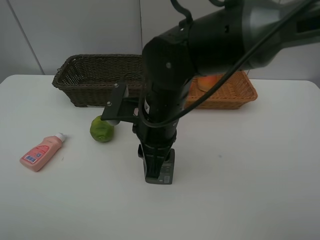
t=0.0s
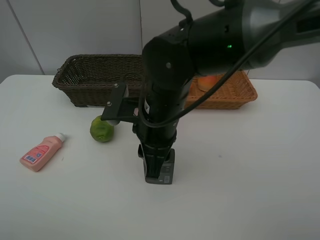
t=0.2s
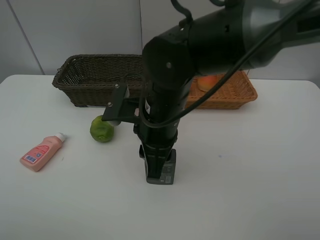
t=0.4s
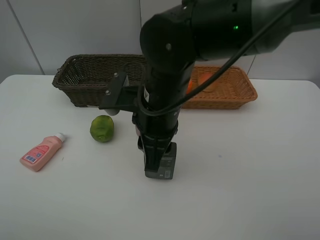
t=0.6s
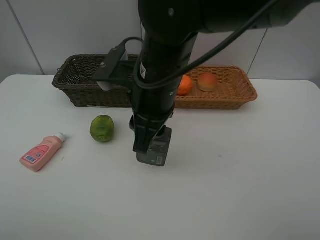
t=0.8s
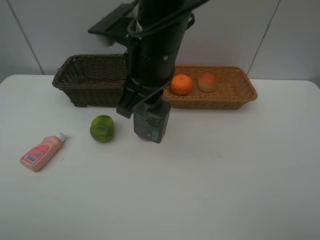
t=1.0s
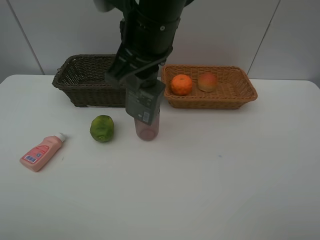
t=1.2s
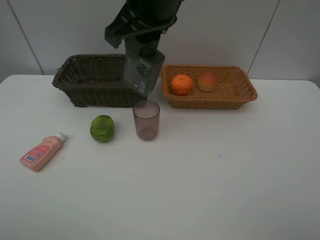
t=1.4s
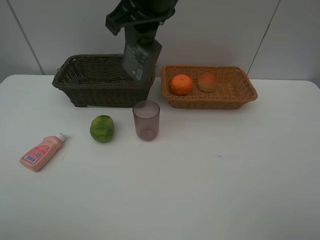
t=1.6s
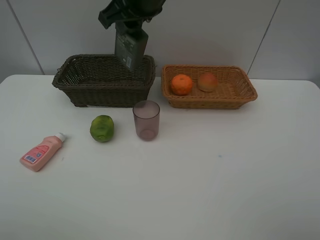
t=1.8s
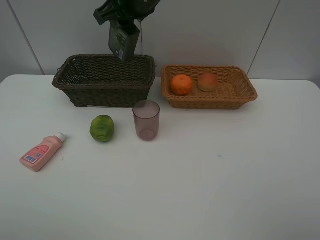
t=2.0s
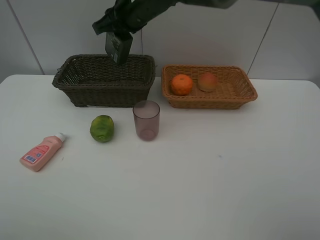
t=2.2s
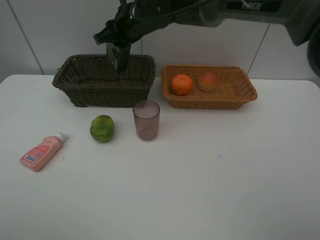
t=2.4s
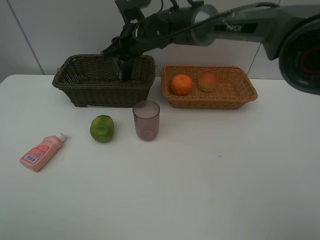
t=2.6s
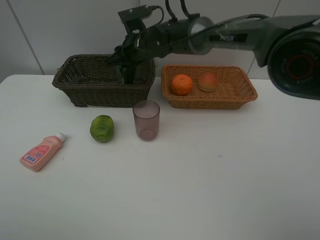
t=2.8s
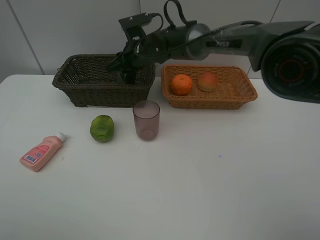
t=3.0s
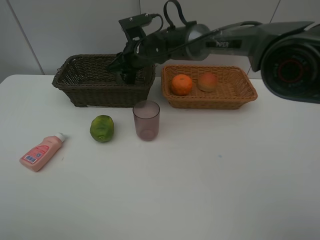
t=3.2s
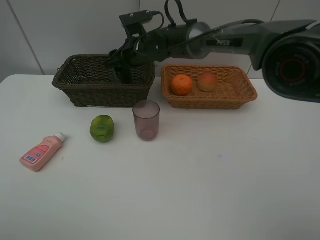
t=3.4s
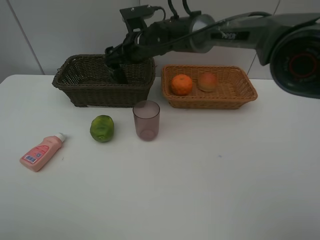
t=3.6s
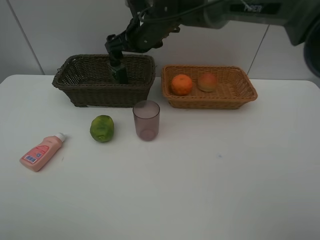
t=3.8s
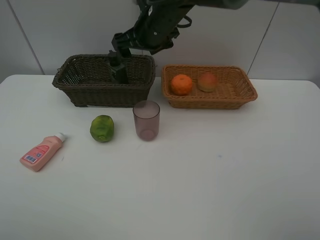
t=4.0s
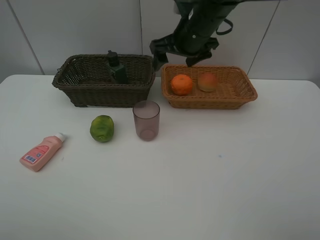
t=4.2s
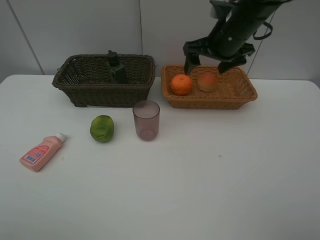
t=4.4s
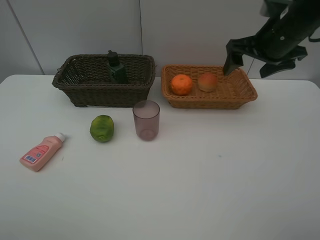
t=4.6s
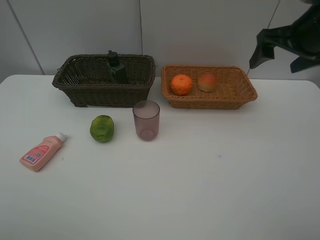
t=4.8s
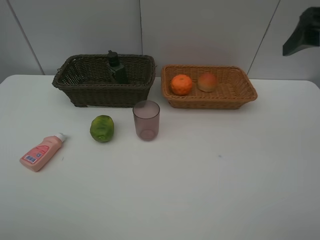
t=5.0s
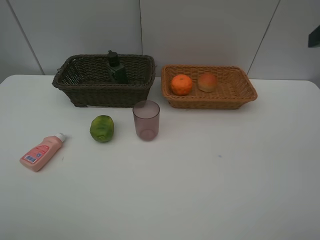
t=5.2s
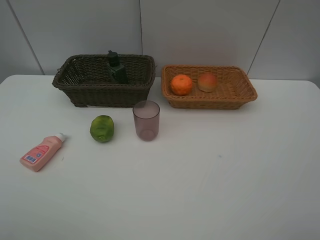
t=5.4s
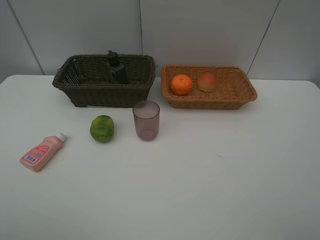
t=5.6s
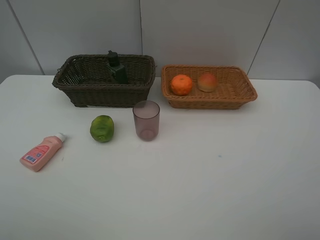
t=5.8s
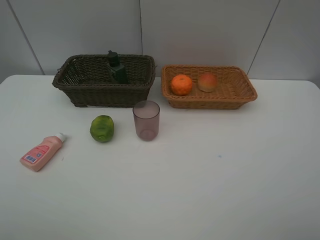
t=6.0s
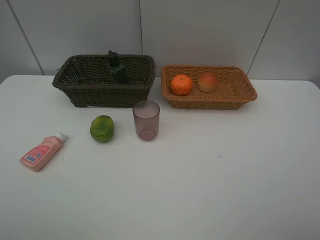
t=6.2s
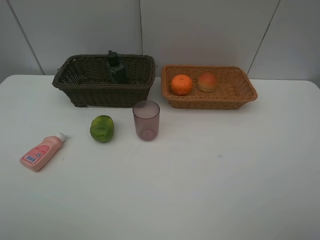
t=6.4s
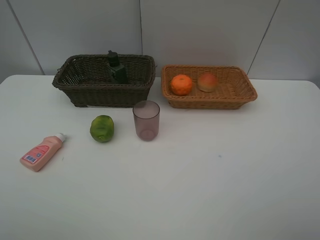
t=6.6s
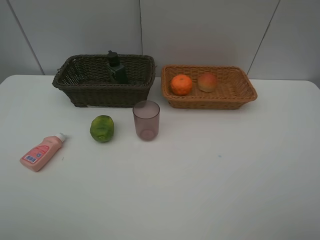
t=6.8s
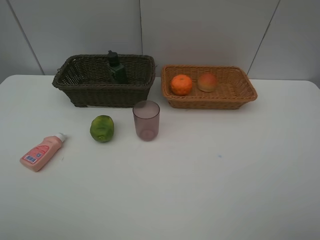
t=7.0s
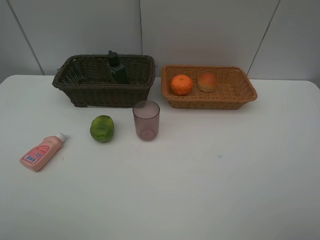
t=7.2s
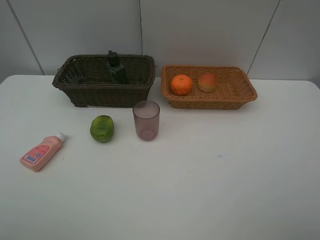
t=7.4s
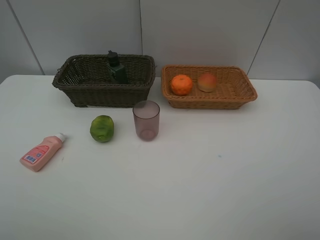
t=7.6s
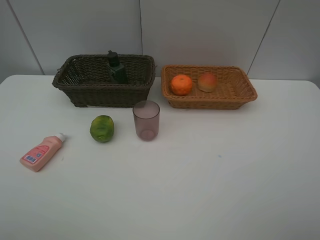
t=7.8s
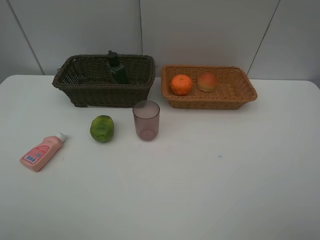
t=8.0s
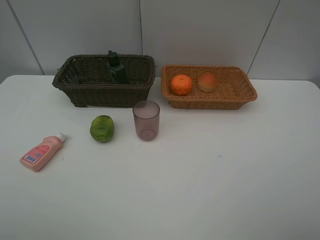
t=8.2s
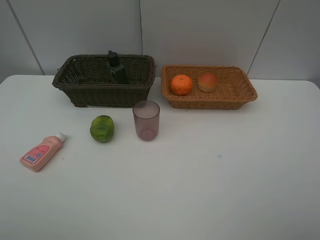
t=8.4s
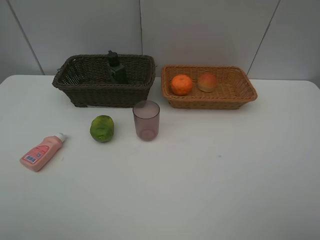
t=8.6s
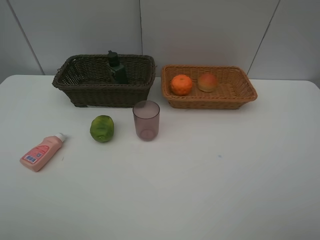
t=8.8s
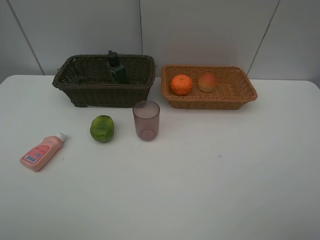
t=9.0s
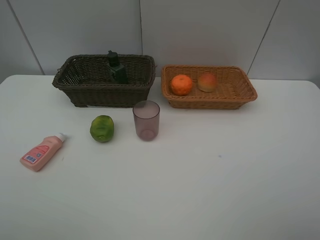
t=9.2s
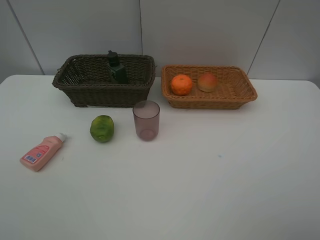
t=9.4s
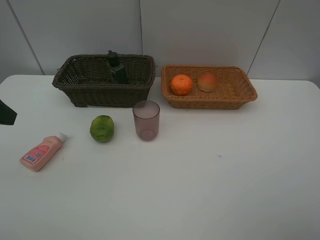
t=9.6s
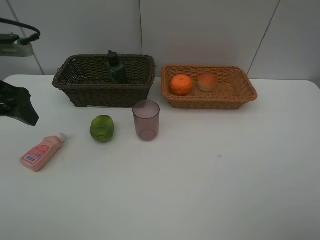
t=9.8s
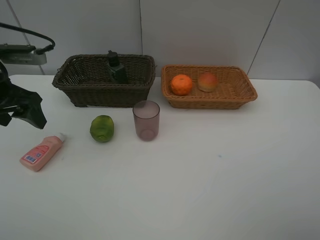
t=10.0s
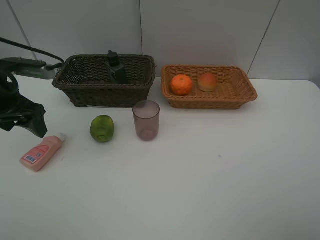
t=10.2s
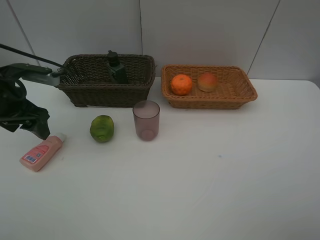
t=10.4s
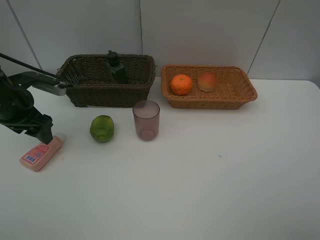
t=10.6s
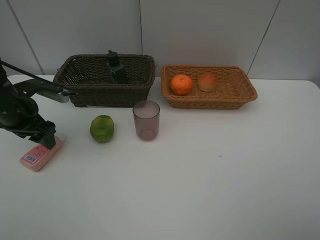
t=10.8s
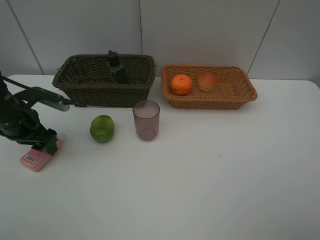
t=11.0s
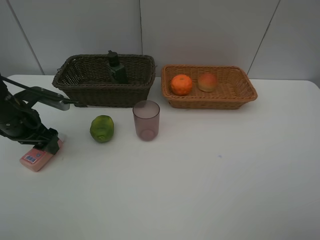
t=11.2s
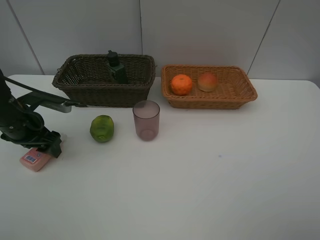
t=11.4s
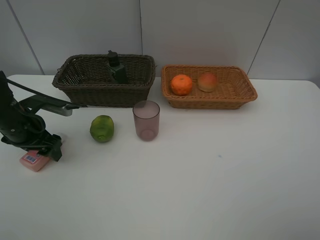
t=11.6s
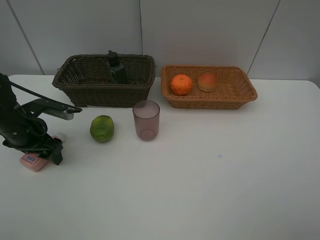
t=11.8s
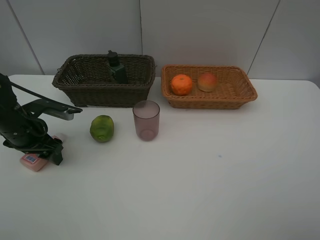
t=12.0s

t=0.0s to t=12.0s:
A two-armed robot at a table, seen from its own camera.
Task of the whole recording: place multiple objects separately in different baskets.
t=0.0s to t=1.6s: The right gripper travels upward and forward by approximately 20 cm.
t=1.6s to t=3.0s: The right gripper heads downward and forward, covering approximately 25 cm.
t=3.0s to t=4.4s: The right gripper shifts roughly 20 cm to the right and upward, and opens up.
t=4.4s to t=6.0s: The right gripper moves backward, some 35 cm.
t=9.0s to t=10.4s: The left gripper shifts roughly 30 cm forward and downward.
t=10.4s to t=12.0s: The left gripper heads downward, covering about 10 cm.

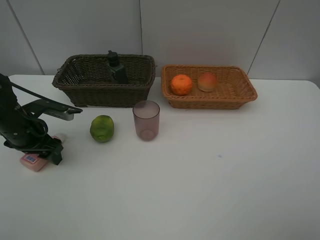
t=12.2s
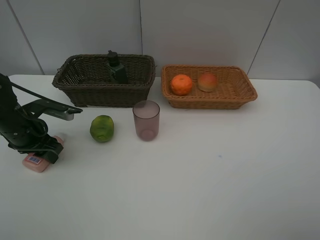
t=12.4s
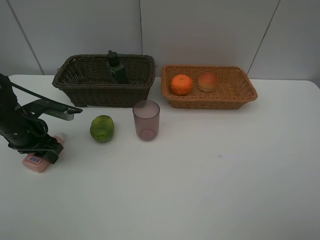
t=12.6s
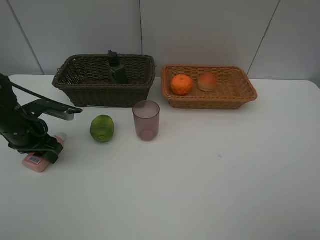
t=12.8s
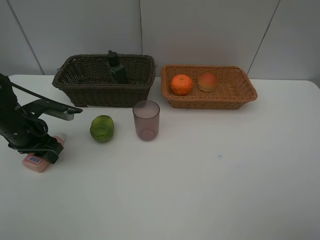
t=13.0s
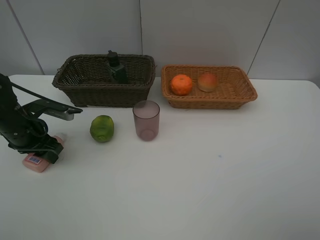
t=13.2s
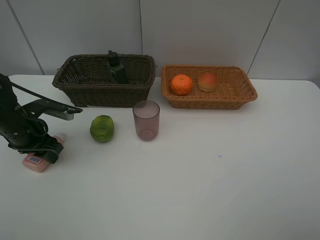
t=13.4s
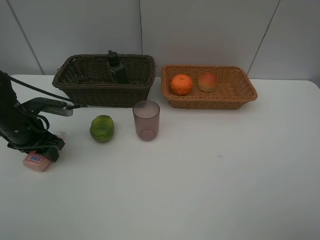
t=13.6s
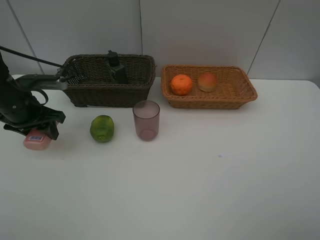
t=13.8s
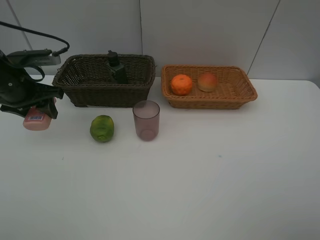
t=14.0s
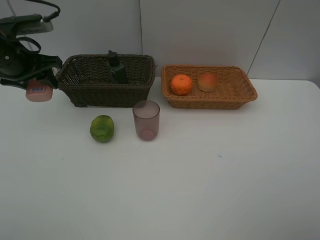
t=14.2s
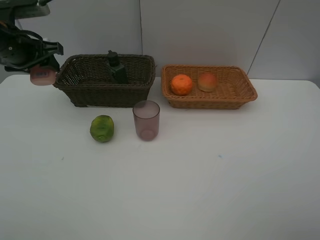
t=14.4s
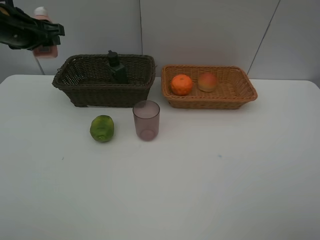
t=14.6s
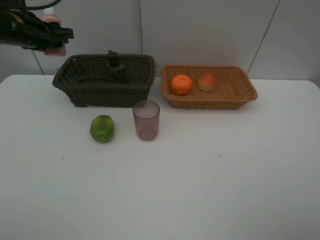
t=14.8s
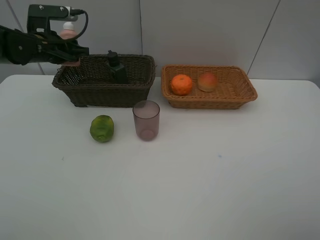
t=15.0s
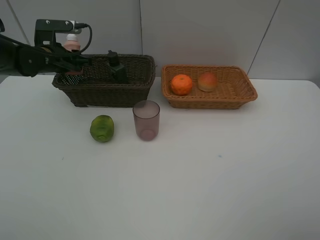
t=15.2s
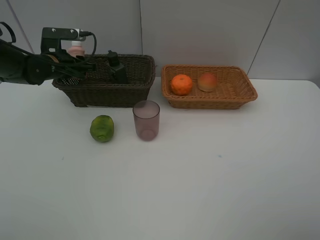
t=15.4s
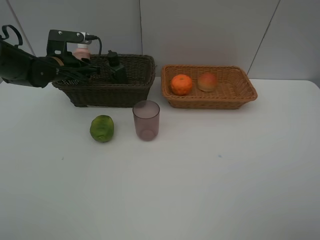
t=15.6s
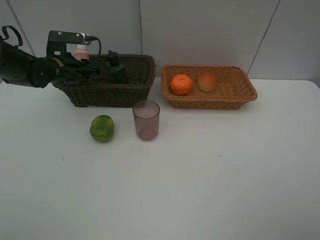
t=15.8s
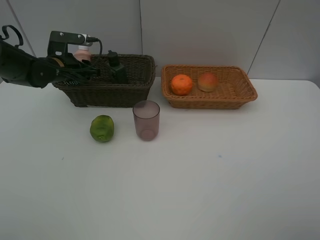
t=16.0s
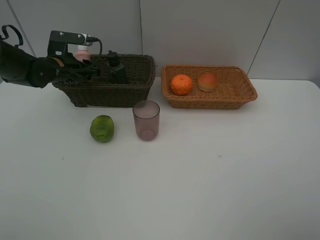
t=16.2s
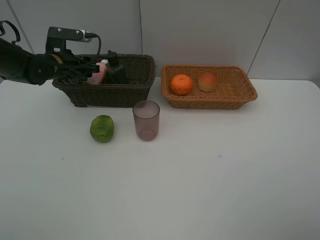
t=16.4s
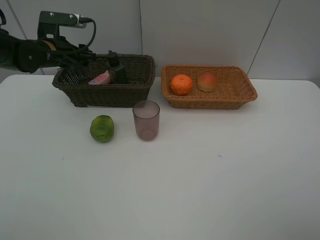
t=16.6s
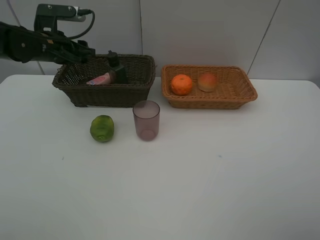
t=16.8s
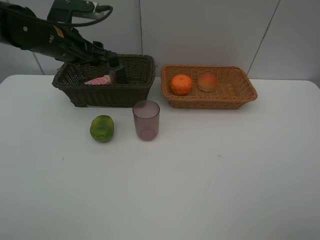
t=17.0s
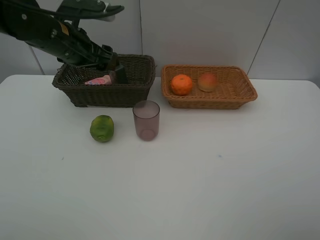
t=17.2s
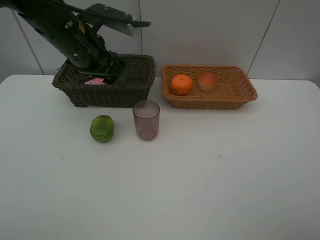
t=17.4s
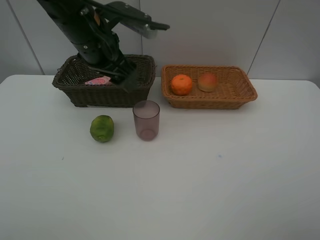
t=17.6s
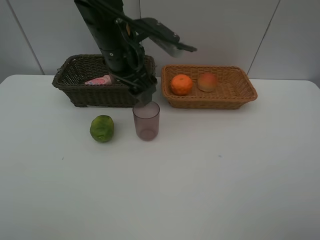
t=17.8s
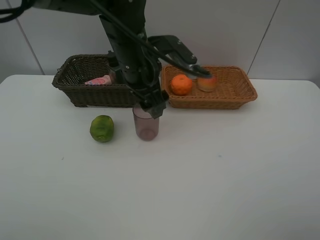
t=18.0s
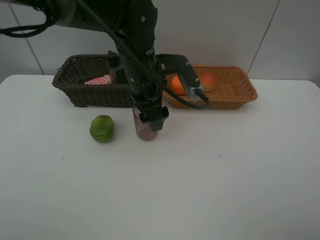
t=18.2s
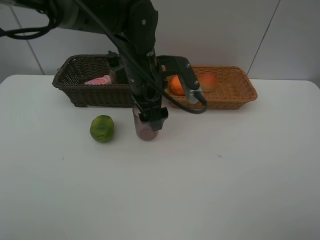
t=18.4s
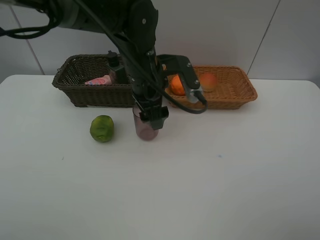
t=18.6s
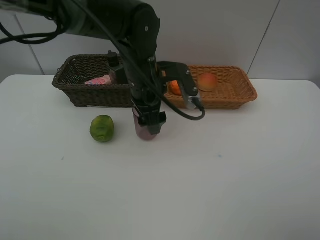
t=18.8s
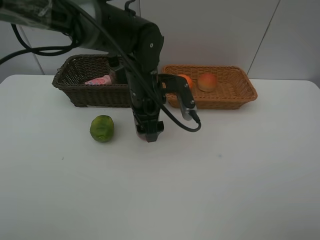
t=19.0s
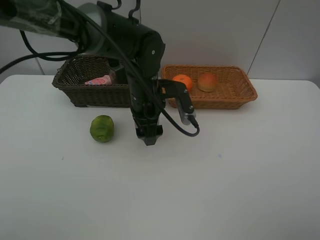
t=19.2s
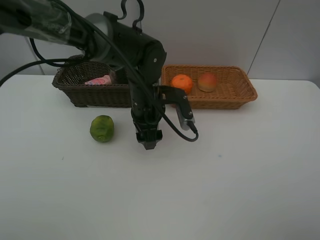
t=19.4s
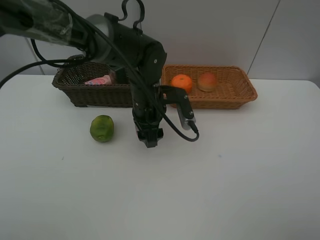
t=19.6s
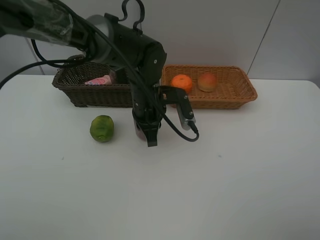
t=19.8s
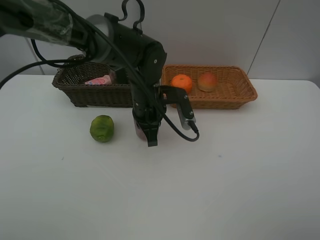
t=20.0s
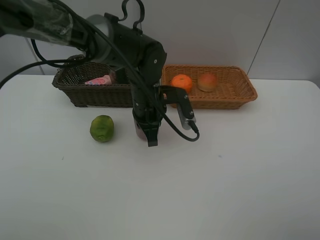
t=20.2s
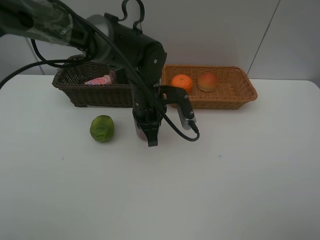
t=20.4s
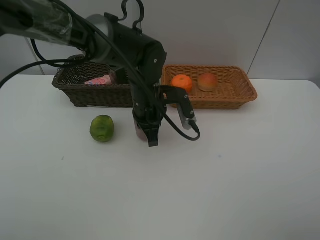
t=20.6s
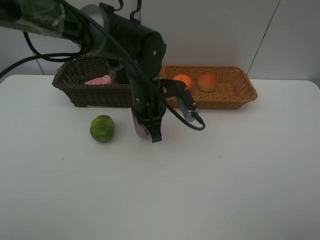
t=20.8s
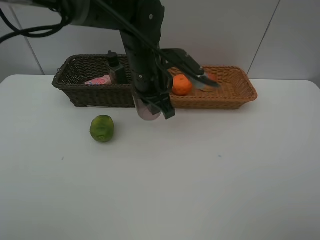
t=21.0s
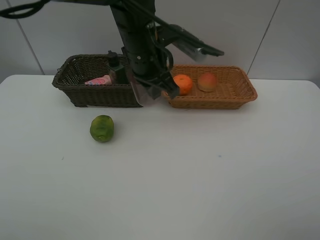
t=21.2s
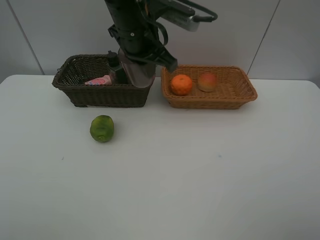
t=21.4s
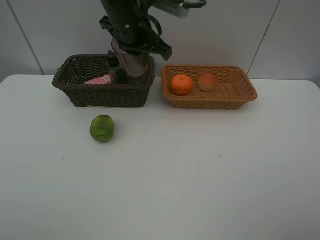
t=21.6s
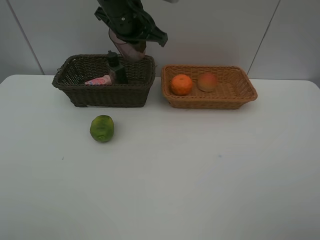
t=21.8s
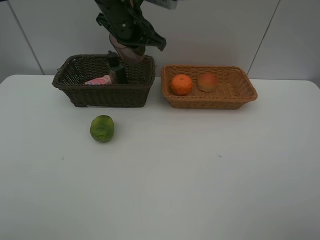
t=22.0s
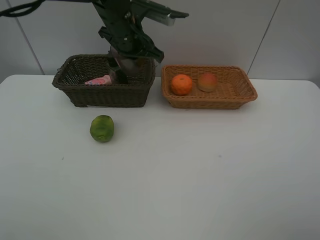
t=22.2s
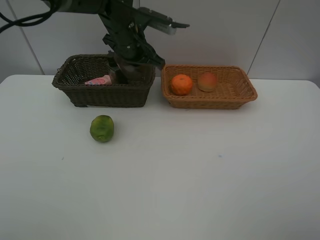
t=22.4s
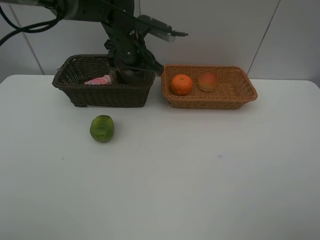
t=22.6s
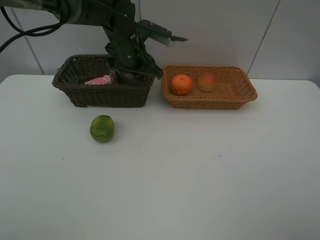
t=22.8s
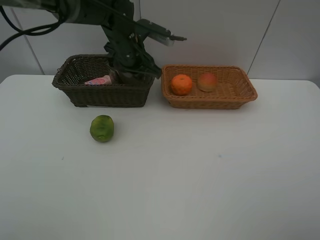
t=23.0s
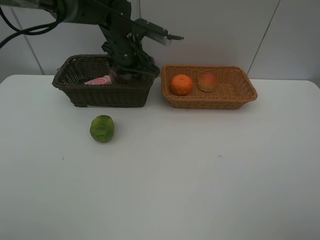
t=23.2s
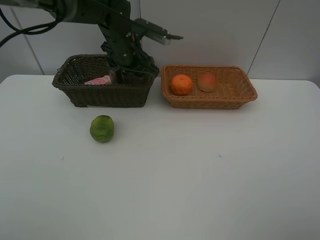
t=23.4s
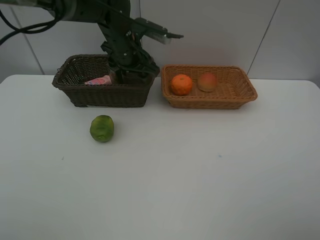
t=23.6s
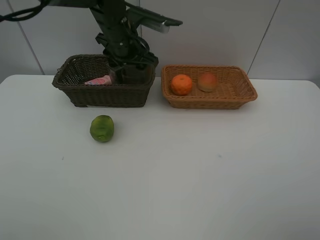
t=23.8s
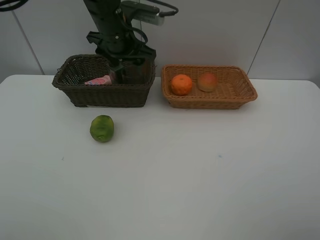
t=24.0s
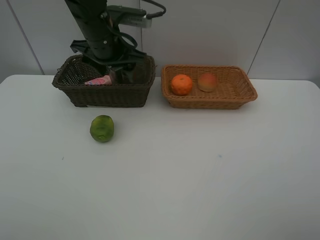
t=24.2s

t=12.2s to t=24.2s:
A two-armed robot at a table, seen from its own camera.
Task of the whole recording: place multiple objects separately in different baskets.
t=12.2s to t=13.8s: The left gripper goes approximately 5 cm upward.
t=13.8s to t=15.2s: The left gripper travels forward by approximately 10 cm.
t=15.2s to t=16.6s: The grippers stay close to where they were, moving slightly.
t=16.6s to t=18.2s: The left gripper shifts approximately 25 cm to the right and backward.
t=18.2s to t=19.8s: The left gripper heads downward, covering some 5 cm, and closes its fingers.
t=19.8s to t=21.2s: The left gripper moves upward, roughly 10 cm.
t=21.2s to t=22.6s: The left gripper goes some 10 cm forward.
t=22.6s to t=24.2s: The left gripper shifts roughly 5 cm backward, and opens up.
